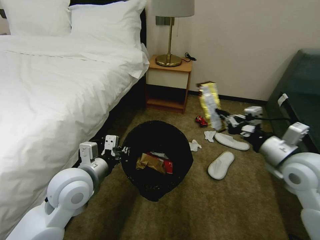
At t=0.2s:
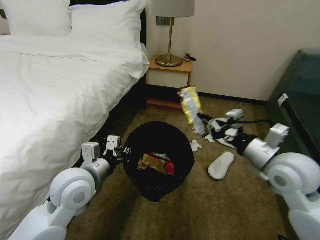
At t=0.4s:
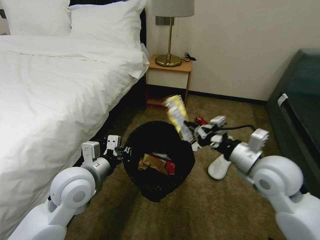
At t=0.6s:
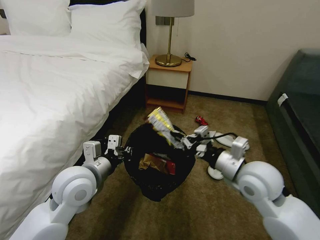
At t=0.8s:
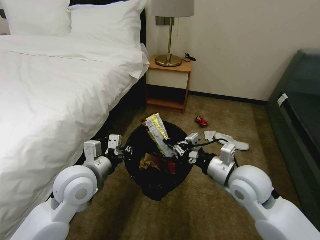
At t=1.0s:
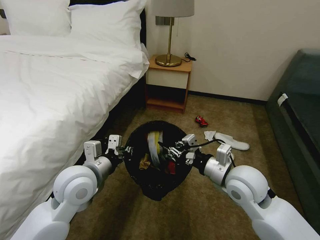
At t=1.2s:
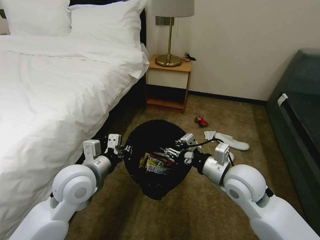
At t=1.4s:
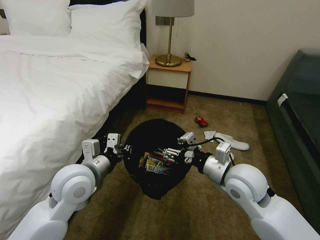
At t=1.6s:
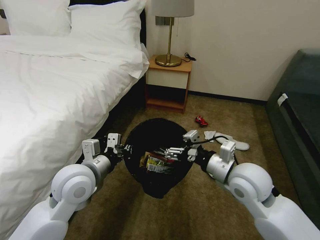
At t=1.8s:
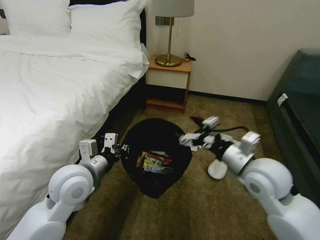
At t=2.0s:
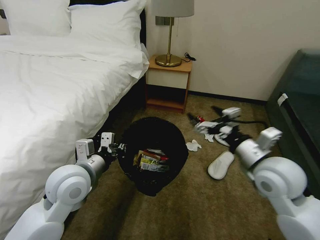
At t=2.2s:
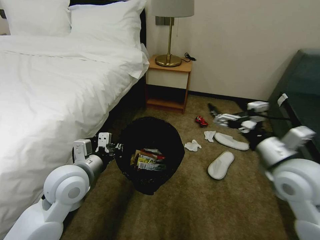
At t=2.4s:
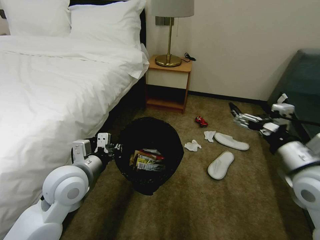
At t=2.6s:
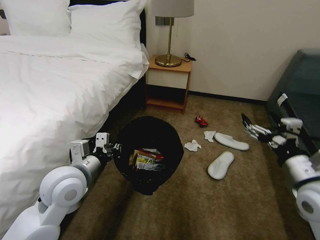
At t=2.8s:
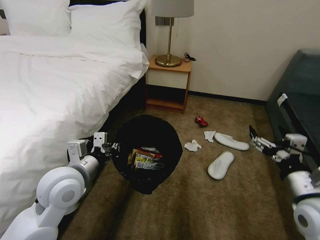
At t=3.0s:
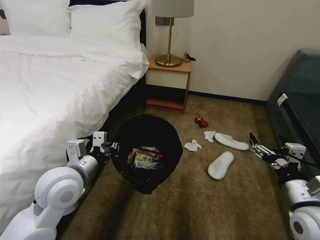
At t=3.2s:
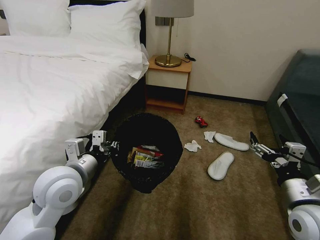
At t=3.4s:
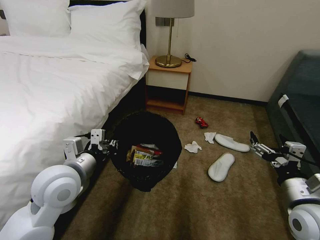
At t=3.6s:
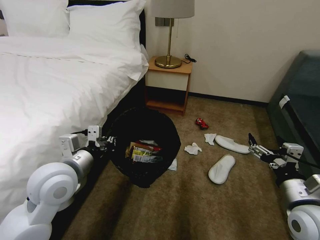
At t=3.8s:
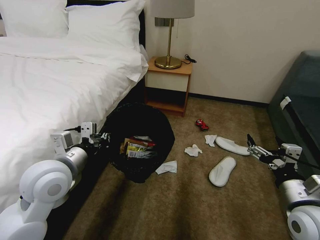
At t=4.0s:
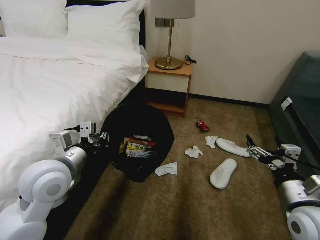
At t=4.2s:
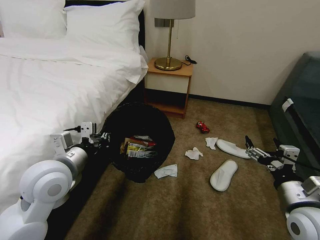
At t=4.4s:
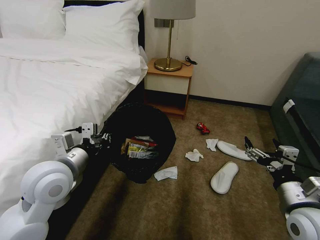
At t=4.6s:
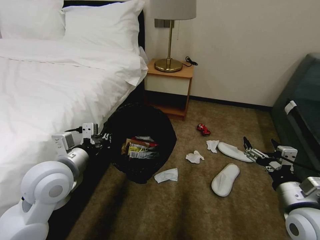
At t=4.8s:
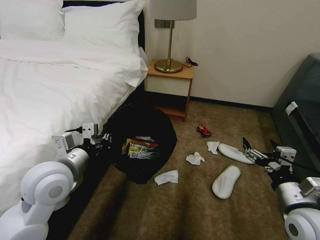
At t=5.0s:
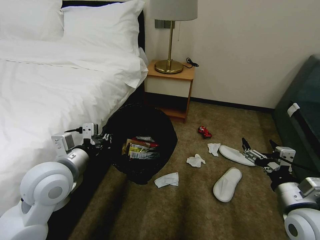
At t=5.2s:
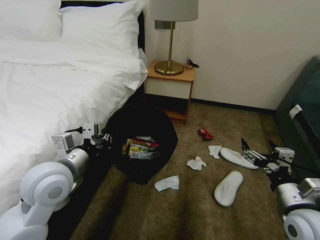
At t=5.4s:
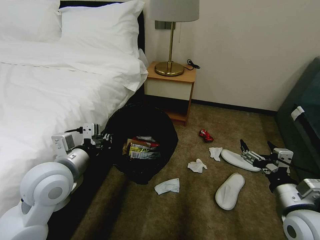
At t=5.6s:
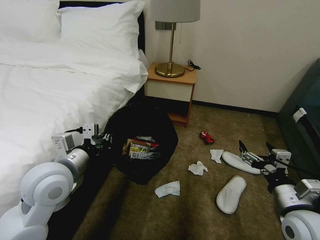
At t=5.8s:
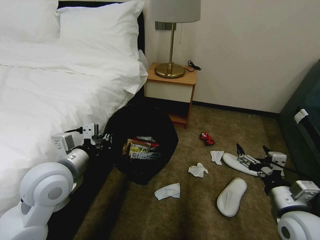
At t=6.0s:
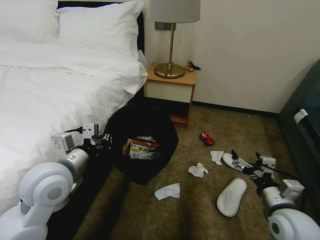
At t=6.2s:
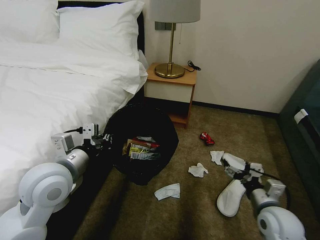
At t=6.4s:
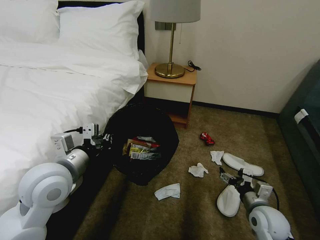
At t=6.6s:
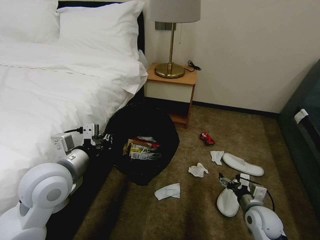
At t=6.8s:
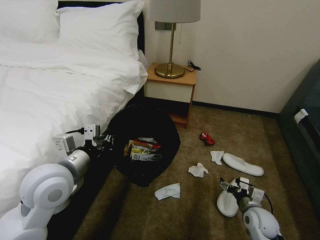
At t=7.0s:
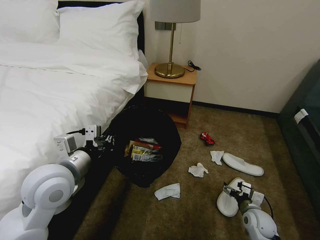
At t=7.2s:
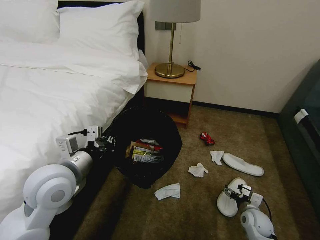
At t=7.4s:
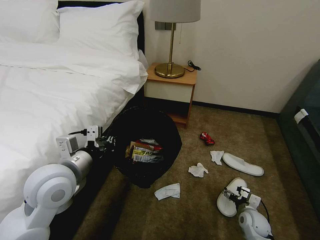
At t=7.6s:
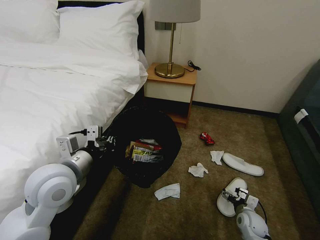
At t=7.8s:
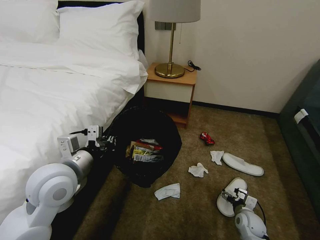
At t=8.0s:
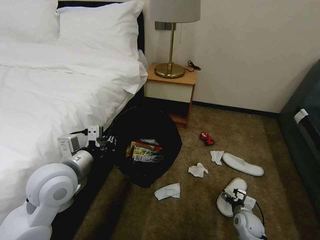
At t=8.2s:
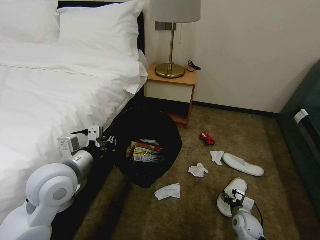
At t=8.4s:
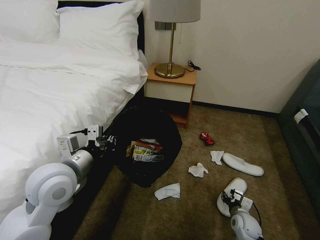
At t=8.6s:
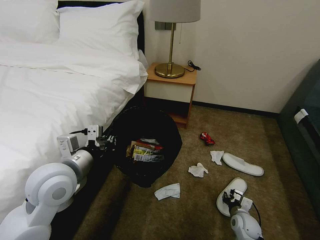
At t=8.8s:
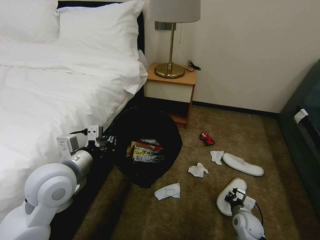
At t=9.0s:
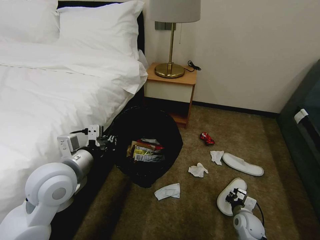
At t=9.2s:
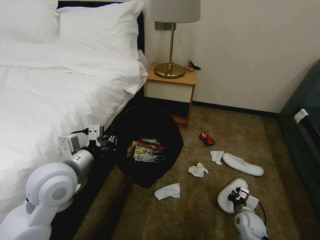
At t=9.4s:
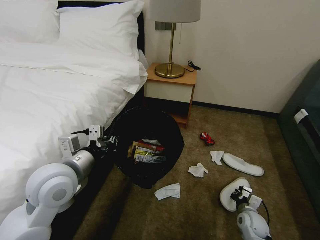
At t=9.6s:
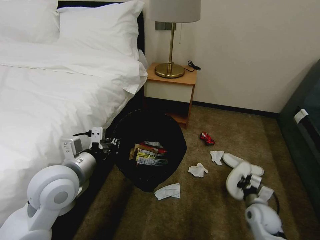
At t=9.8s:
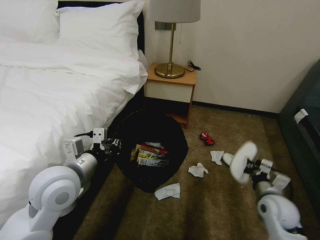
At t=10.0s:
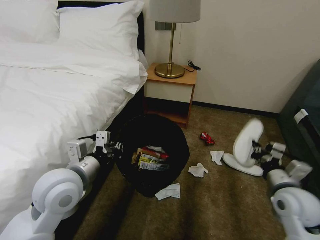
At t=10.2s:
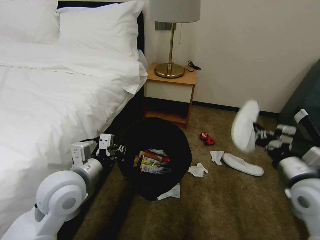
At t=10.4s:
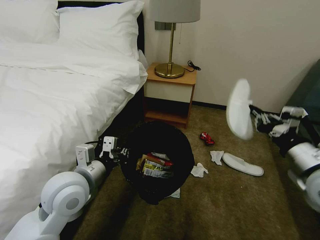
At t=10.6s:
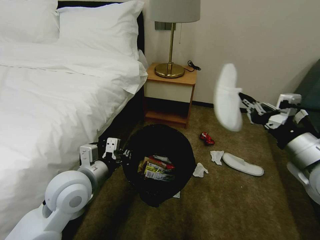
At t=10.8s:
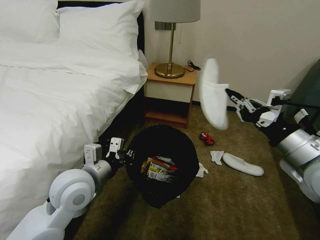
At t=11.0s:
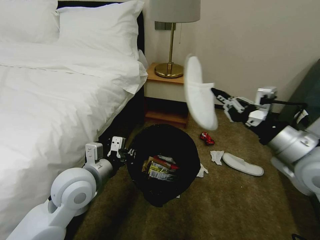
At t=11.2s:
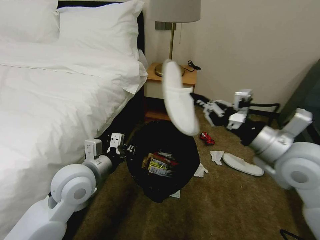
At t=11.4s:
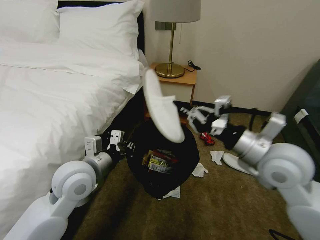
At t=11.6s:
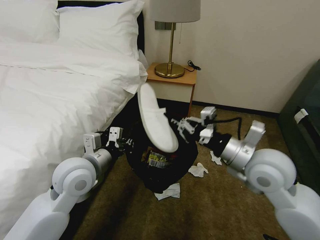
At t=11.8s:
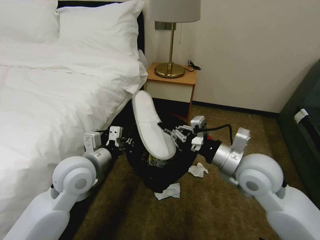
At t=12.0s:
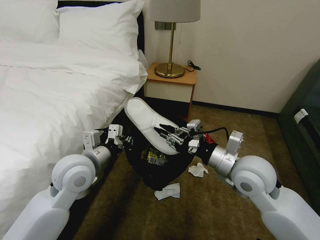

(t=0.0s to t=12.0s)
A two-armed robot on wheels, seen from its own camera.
Task of the whole recording: Pick up the trash bin, then pick up the garbage on the floor and place it into the trash bin.
t=0.0s - t=1.6s: The right gripper goes roughly 15 cm to the left and downward, and opens up.
t=1.6s - t=3.0s: The right gripper goes roughly 15 cm to the right and backward.
t=4.4s - t=6.0s: The right gripper goes about 5 cm downward.
t=6.0s - t=7.6s: The right gripper is displaced downward by approximately 25 cm.
t=7.6s - t=9.0s: The right gripper closes its fingers.
t=9.0s - t=10.4s: The right gripper travels upward by some 40 cm.
t=10.4s - t=12.0s: The right gripper moves to the left and forward, some 15 cm.

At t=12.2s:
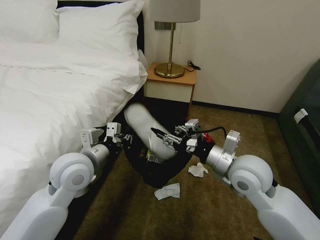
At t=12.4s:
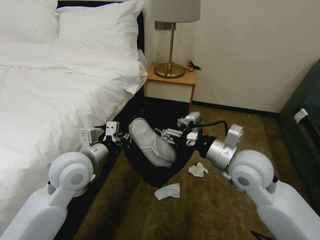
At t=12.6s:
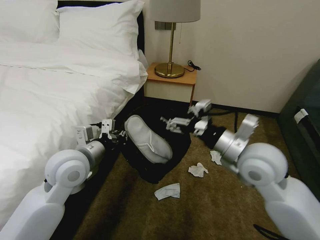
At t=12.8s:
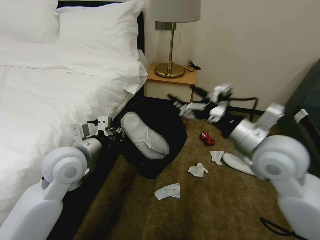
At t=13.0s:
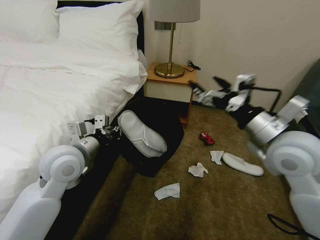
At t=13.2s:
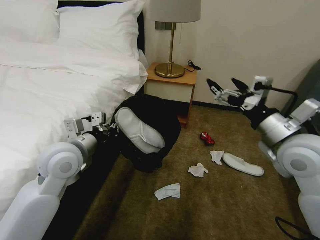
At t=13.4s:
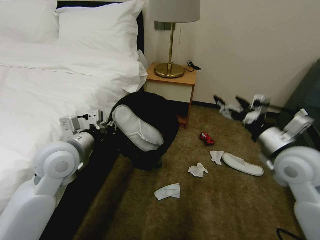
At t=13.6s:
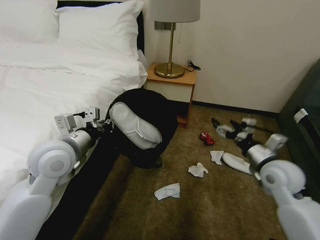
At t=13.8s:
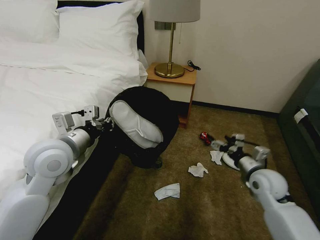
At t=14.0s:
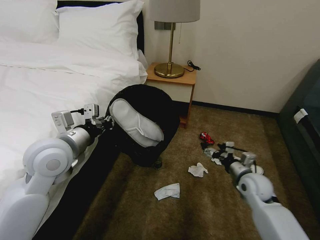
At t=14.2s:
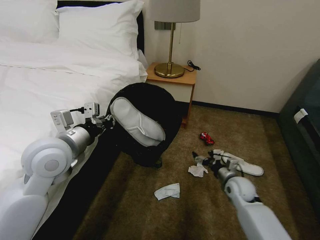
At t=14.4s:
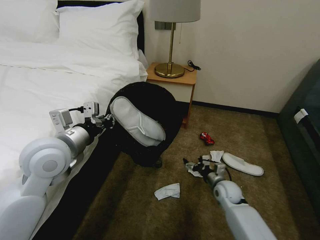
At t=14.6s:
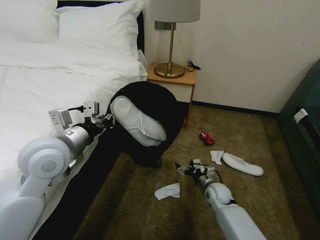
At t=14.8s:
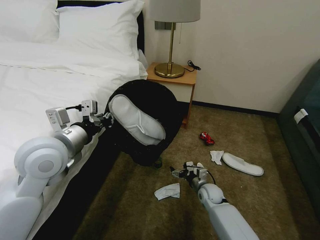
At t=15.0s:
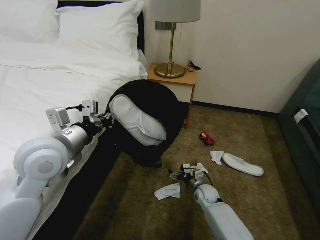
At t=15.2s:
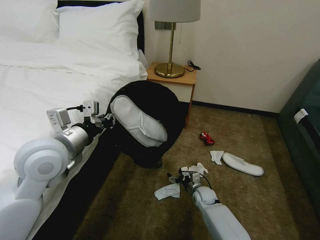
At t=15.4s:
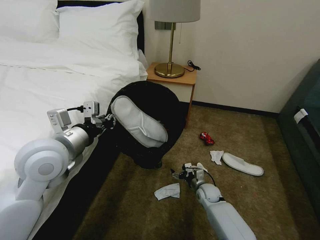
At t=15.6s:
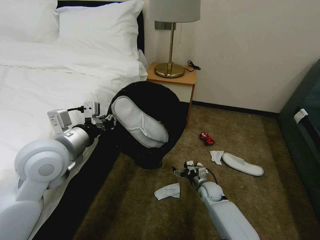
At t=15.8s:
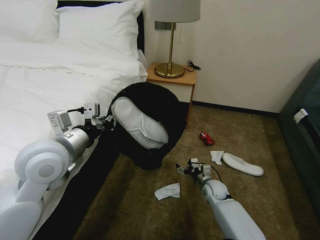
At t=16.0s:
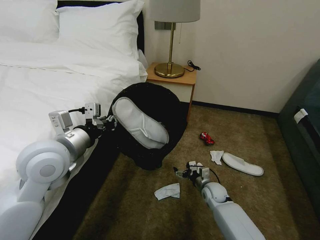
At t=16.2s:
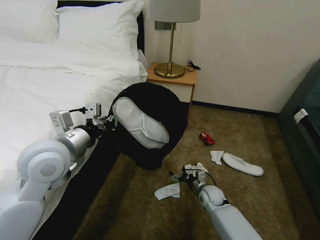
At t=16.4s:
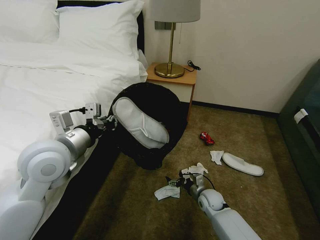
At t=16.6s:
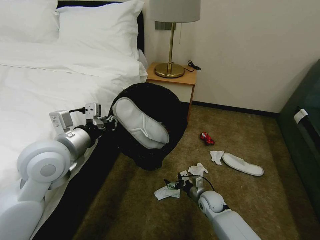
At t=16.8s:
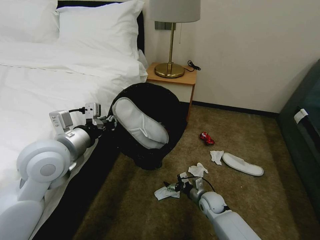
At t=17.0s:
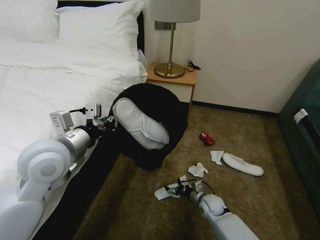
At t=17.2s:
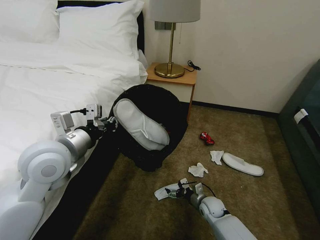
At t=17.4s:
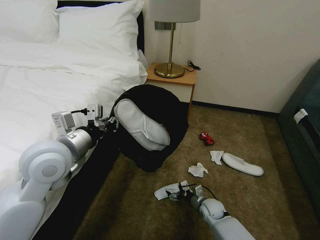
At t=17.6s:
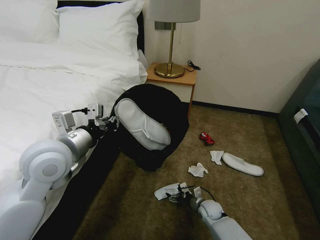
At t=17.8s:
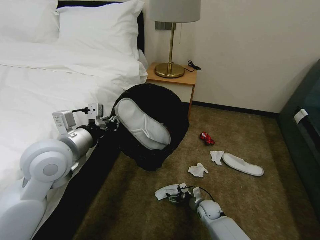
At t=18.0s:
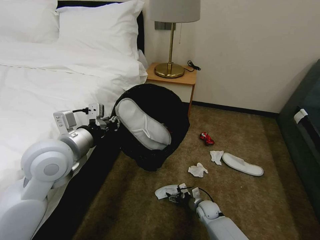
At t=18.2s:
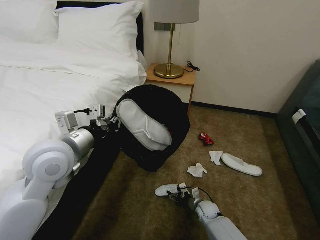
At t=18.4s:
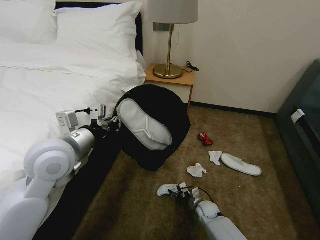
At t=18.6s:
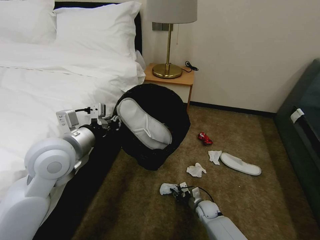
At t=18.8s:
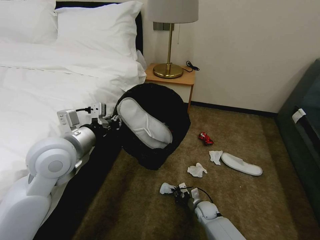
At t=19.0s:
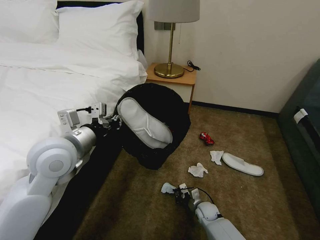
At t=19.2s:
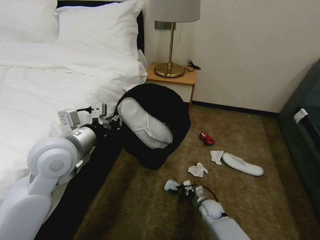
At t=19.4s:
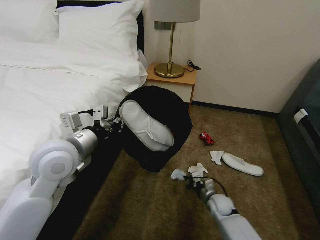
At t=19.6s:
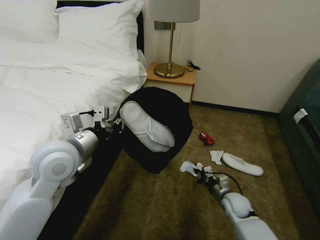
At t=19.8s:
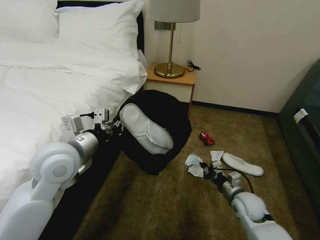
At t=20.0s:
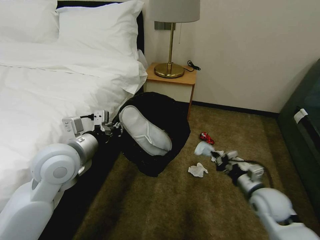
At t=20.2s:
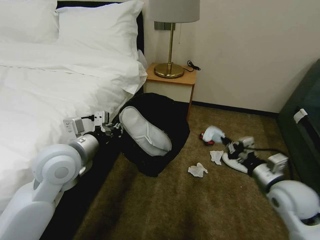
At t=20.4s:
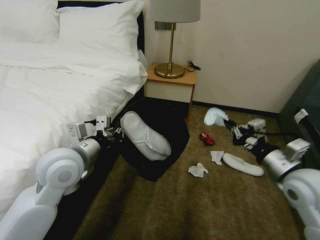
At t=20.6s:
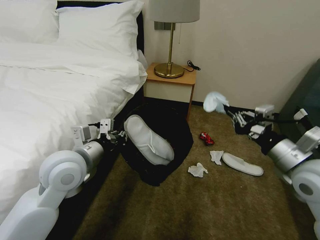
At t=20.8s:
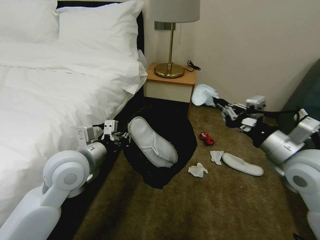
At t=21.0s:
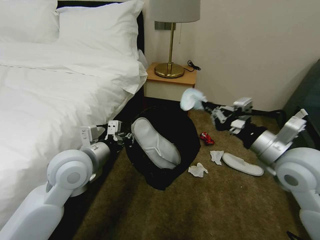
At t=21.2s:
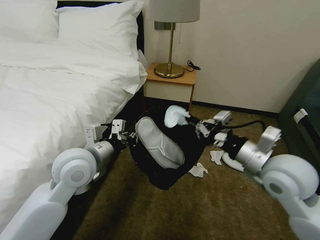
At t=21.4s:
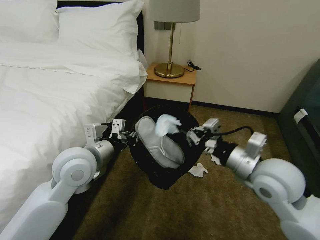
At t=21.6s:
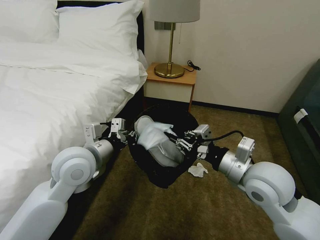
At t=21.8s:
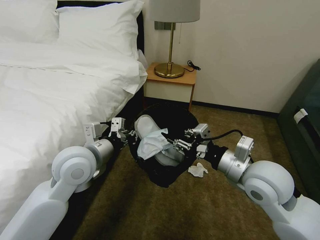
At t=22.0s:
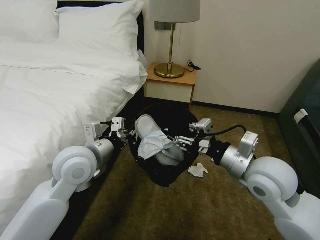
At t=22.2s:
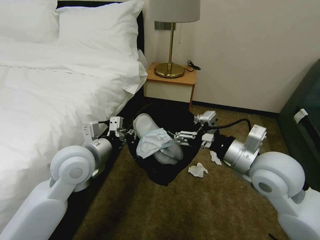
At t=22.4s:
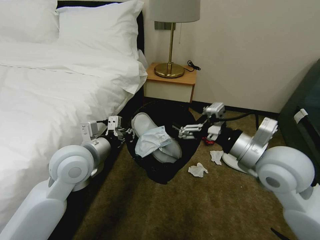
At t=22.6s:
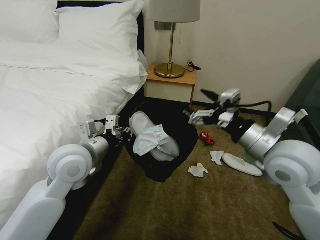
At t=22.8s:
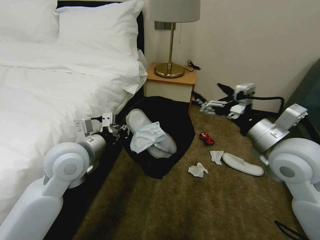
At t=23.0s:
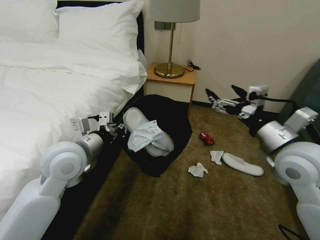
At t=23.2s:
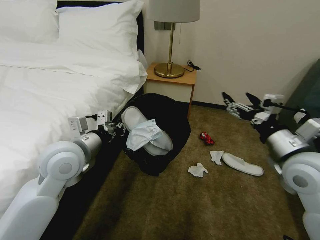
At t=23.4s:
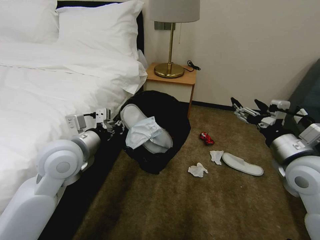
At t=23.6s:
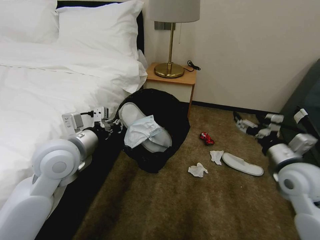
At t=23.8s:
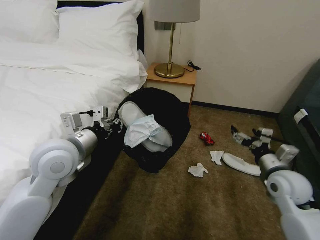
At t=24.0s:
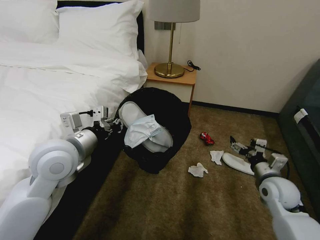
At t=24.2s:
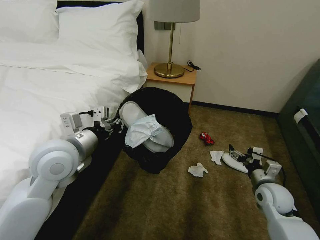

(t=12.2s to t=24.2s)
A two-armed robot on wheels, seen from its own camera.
Task of the whole recording: Pick up the trash bin, then pick up the garbage on the floor and place it into the trash bin.
t=12.2s - t=13.8s: The right gripper heads to the right and downward, covering some 15 cm, and opens its fingers. The left gripper moves roughly 5 cm.
t=13.8s - t=15.2s: The right gripper is displaced downward and to the left by roughly 30 cm.
t=15.2s - t=16.6s: The grippers stay close to where they were, moving slightly.
t=16.6s - t=18.2s: The right gripper shifts some 10 cm downward.
t=18.2s - t=19.8s: The right gripper travels upward and to the right by about 20 cm, and closes.
t=19.8s - t=21.2s: The right gripper travels upward by approximately 30 cm.
t=21.2s - t=22.6s: The right gripper opens its fingers.
t=22.6s - t=24.2s: The right gripper is displaced downward and to the right by approximately 25 cm.
